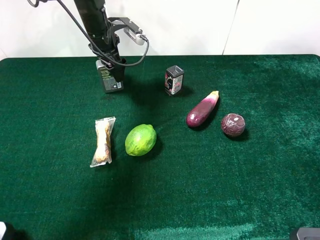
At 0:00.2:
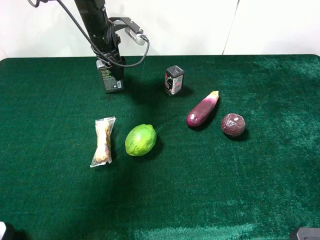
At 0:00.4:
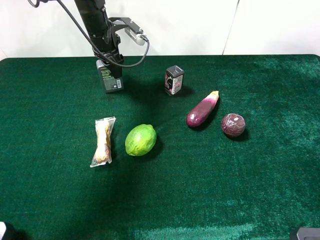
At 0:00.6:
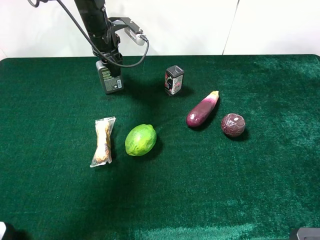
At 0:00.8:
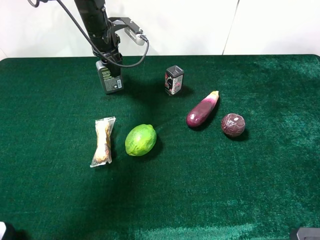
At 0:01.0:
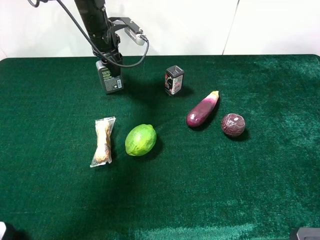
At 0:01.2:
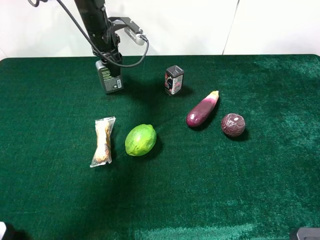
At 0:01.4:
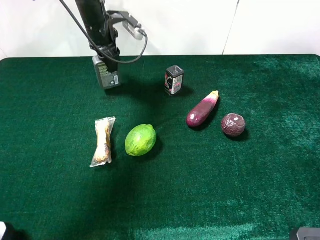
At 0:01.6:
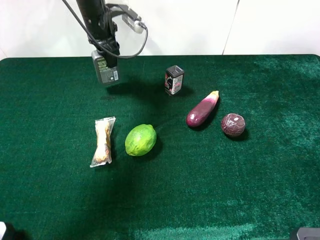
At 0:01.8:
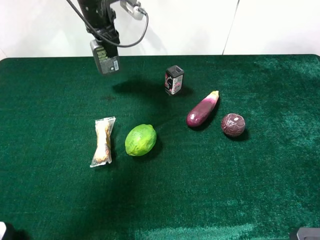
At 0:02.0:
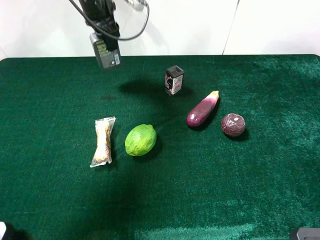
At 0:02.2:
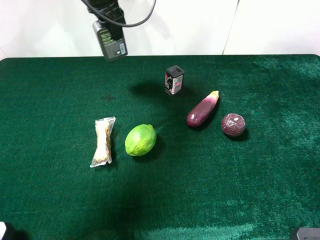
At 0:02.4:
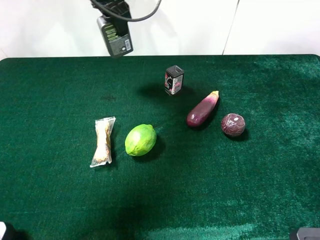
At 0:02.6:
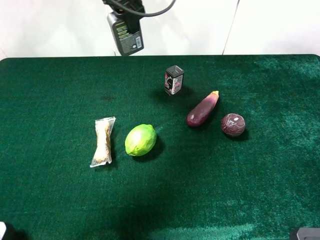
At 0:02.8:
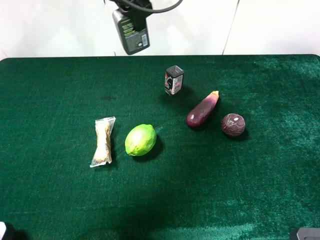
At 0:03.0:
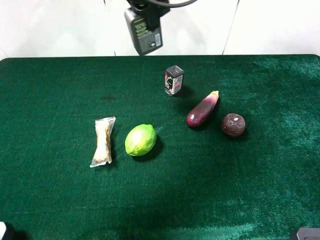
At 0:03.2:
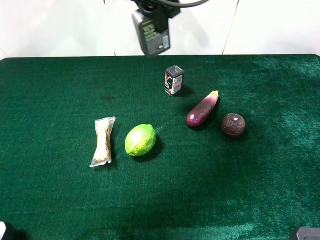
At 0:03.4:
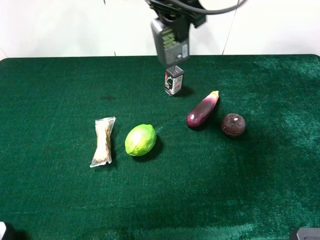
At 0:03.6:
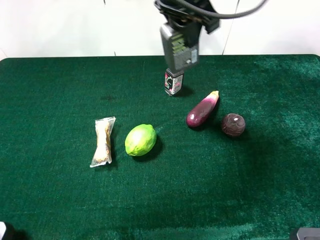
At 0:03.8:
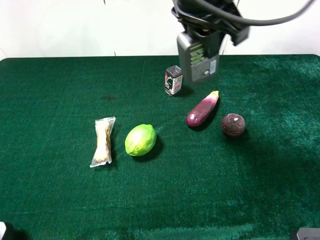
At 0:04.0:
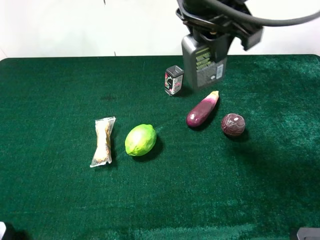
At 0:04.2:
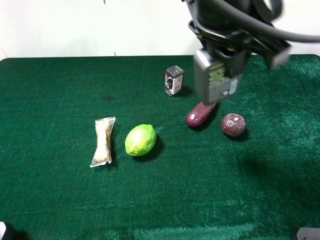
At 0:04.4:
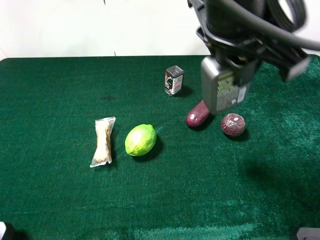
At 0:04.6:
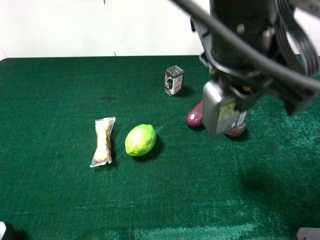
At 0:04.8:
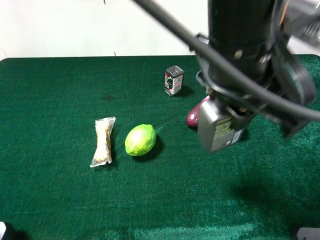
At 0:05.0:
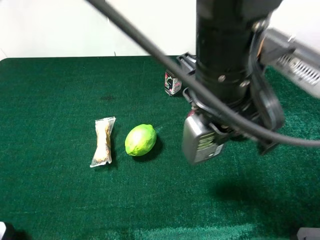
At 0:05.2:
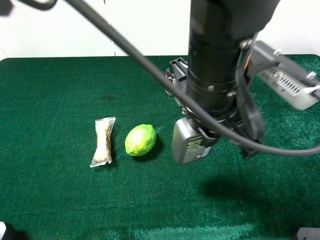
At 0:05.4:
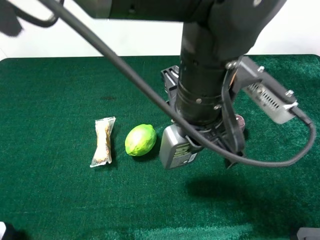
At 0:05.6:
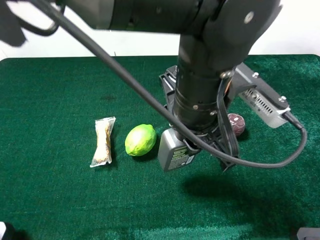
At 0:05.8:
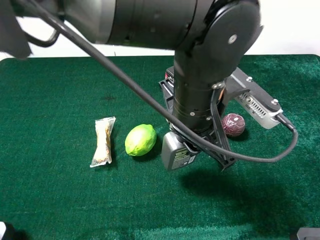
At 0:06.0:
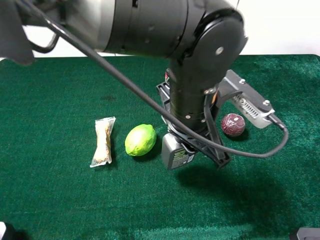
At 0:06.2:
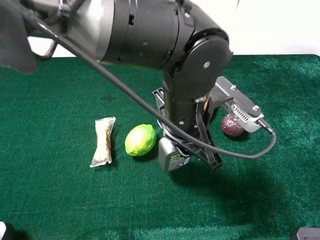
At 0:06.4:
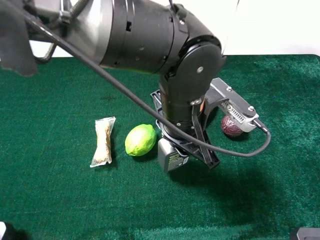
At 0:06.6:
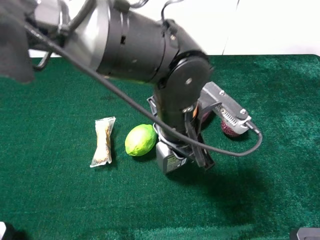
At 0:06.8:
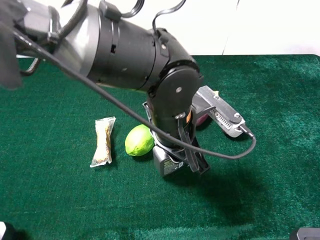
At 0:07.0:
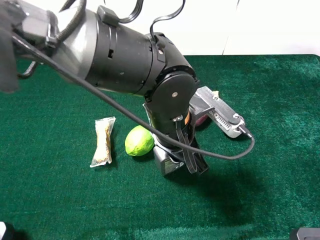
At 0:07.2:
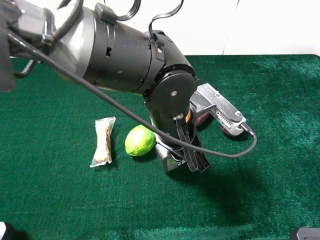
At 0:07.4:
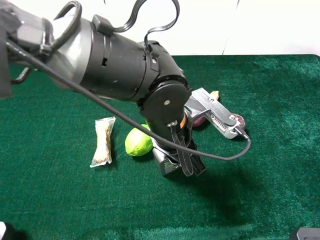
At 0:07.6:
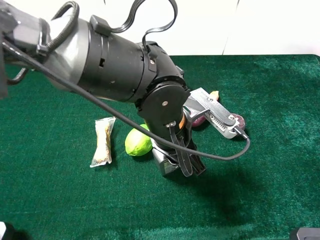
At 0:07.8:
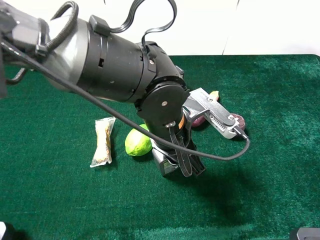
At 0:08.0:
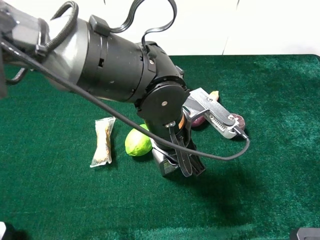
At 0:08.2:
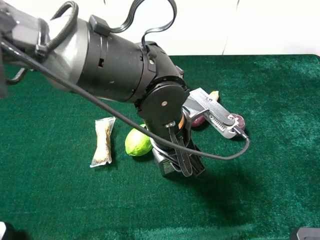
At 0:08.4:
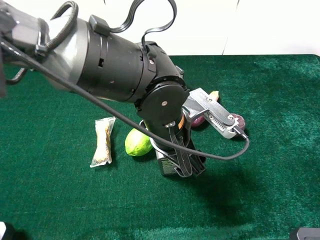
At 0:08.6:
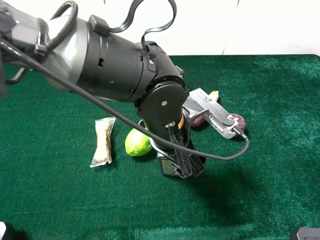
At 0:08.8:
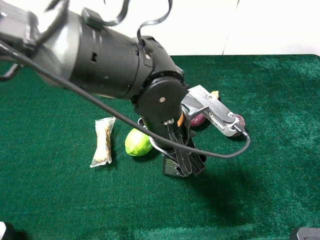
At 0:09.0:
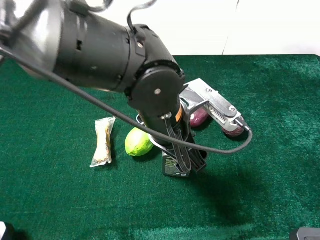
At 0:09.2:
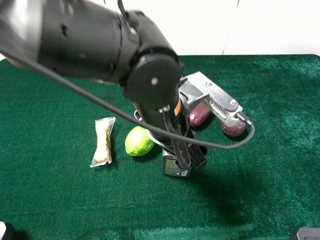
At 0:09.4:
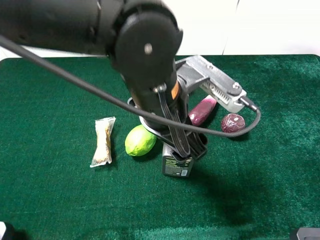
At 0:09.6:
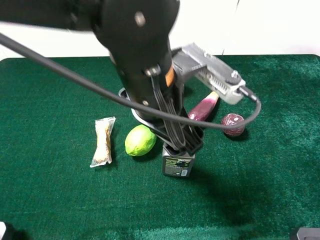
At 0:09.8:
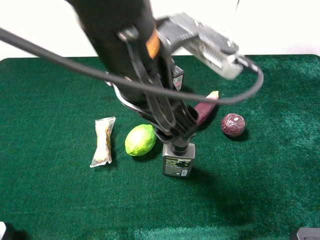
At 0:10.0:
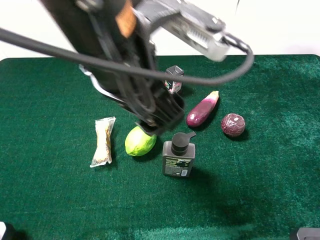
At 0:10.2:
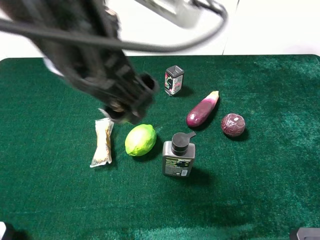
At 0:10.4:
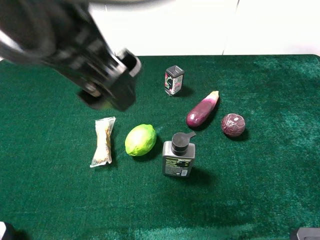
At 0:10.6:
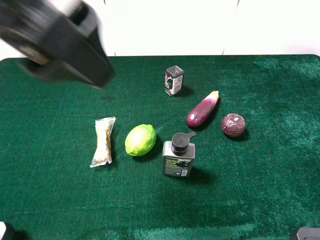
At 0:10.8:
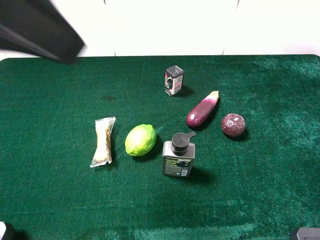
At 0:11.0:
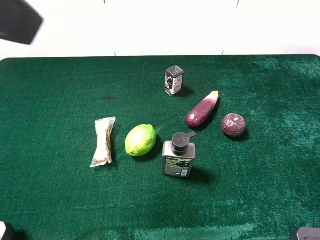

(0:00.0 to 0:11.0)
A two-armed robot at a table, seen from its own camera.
Task of the whole recording: the gripper move the object.
Step, 0:01.0 - 0:09.8: Place the hard facial cleanser on the table with the left gripper.
0:00.0 - 0:01.6: The left gripper closes its fingers.
0:01.6 - 0:03.2: The left gripper shifts approximately 20 cm to the right, upward and backward.
0:03.2 - 0:04.8: The left gripper moves backward and to the right, roughly 20 cm.
0:04.8 - 0:06.2: The left gripper shifts approximately 10 cm downward.
0:07.8 - 0:09.4: The left gripper moves upward, roughly 10 cm, and opens up.
0:09.4 - 0:11.0: The left gripper moves upward and to the left, about 30 cm.

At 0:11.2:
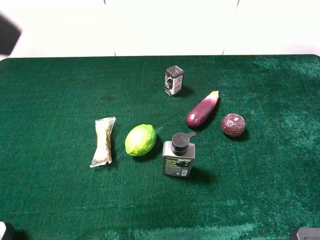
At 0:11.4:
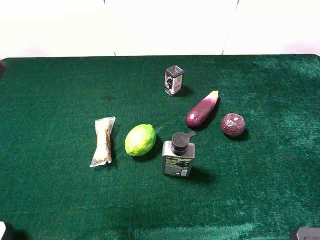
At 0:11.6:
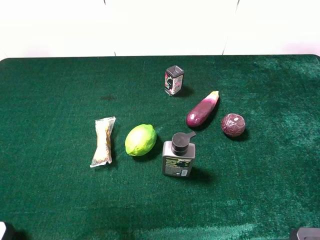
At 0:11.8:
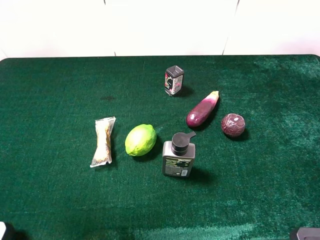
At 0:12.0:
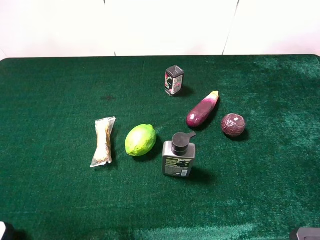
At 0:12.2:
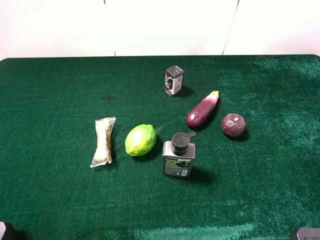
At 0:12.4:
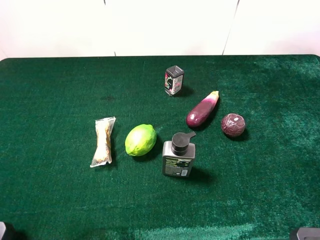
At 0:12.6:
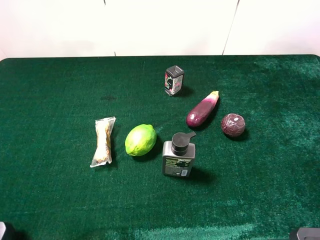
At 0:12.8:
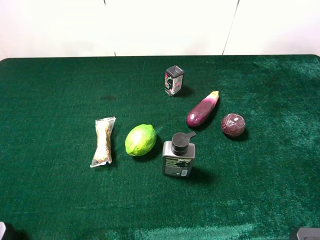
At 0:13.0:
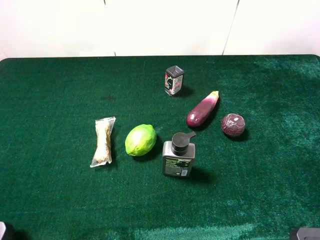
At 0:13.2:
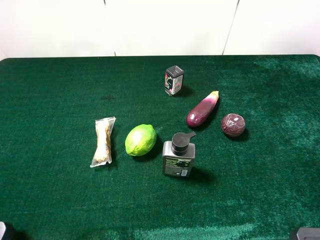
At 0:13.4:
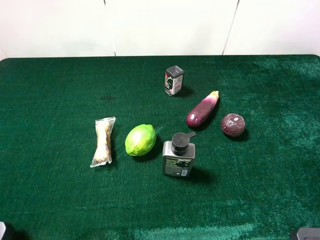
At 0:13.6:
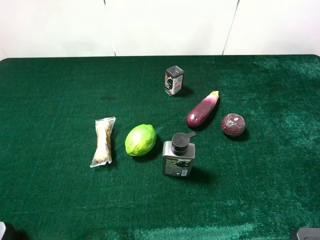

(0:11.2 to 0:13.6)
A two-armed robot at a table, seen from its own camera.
Task of the whole recording: the gripper move the object.
0:11.2 - 0:12.4: The left gripper moves downward, to the left and backward, roughly 20 cm.
